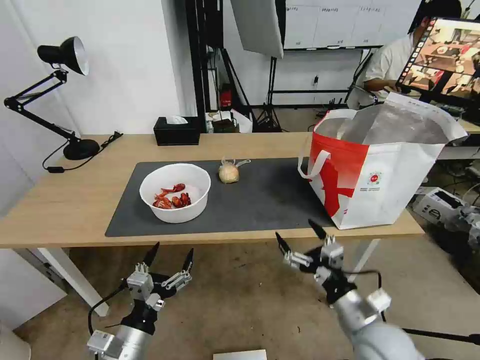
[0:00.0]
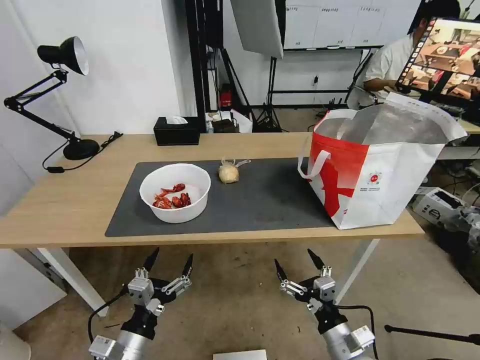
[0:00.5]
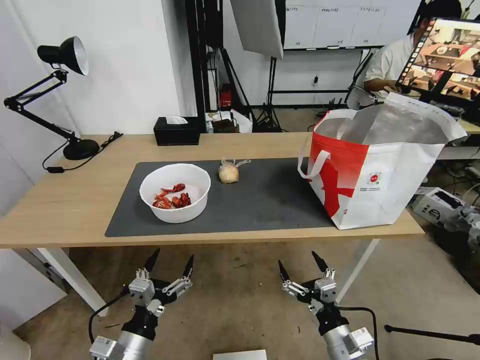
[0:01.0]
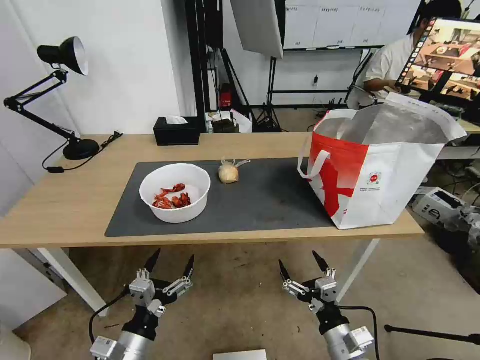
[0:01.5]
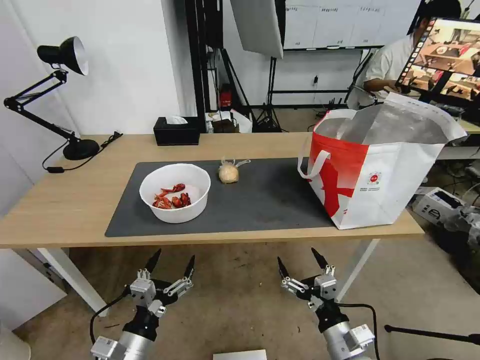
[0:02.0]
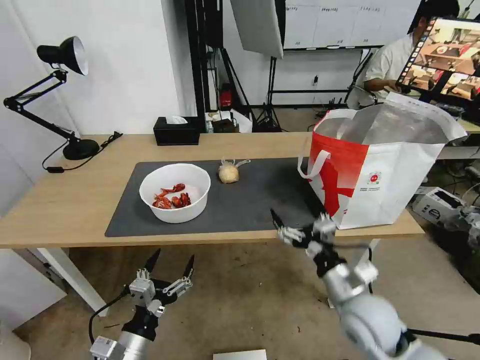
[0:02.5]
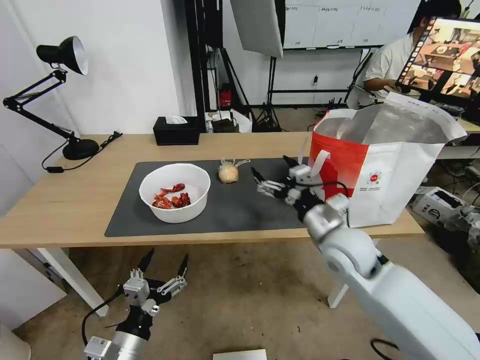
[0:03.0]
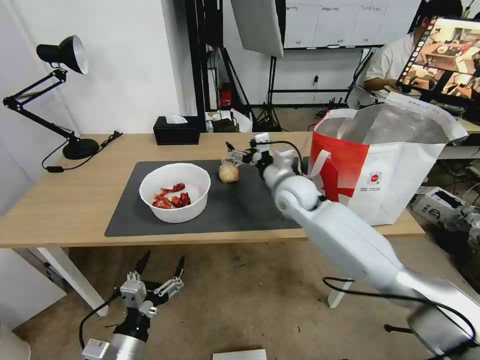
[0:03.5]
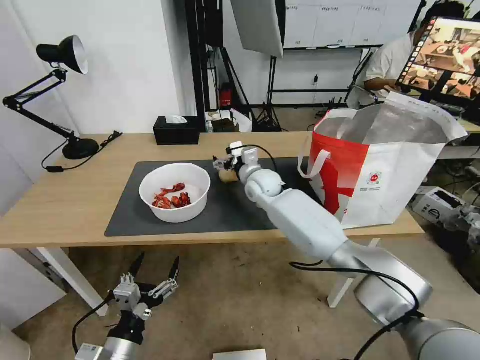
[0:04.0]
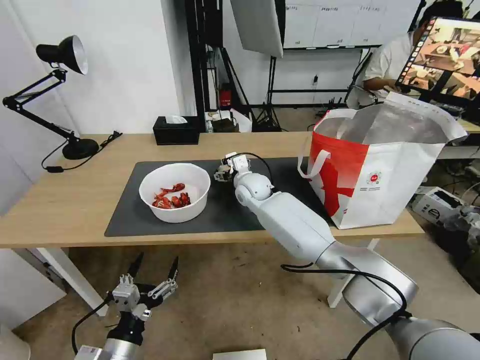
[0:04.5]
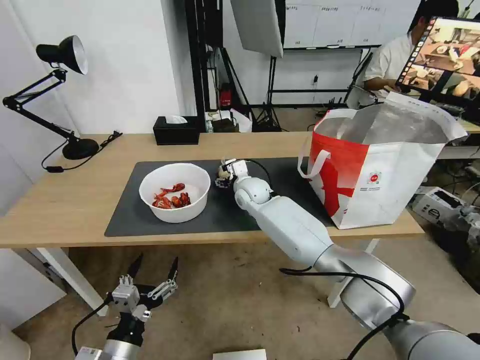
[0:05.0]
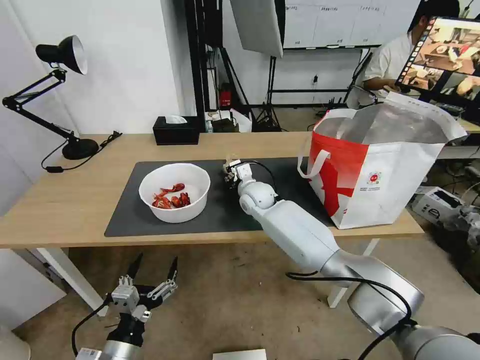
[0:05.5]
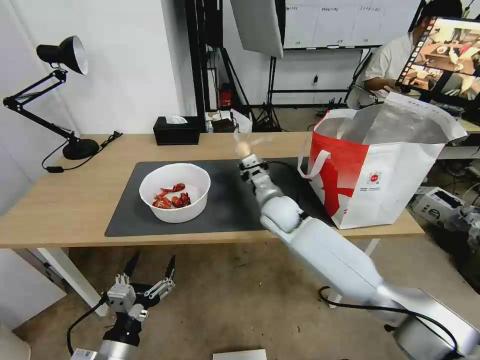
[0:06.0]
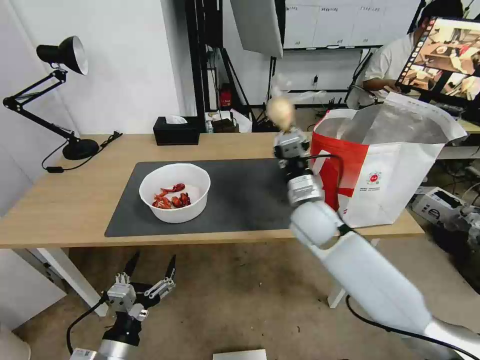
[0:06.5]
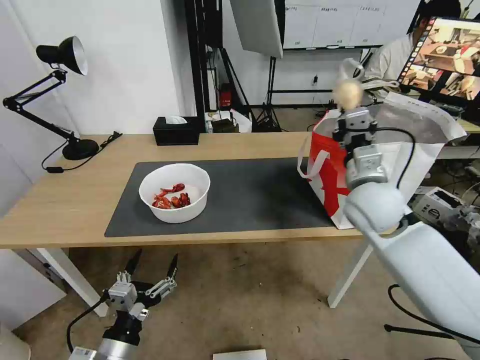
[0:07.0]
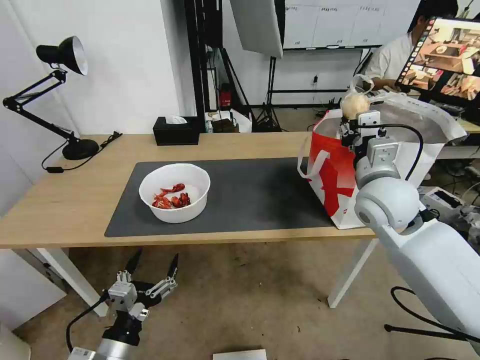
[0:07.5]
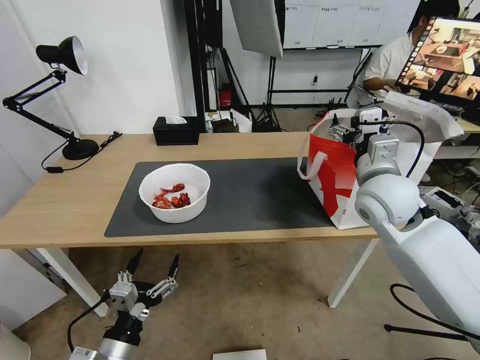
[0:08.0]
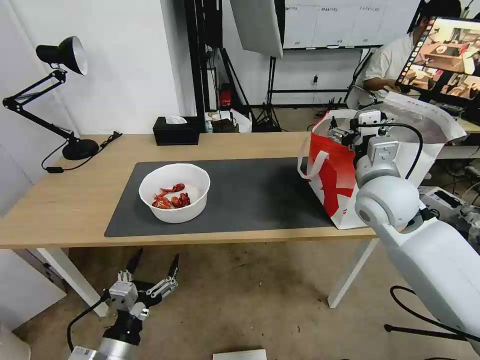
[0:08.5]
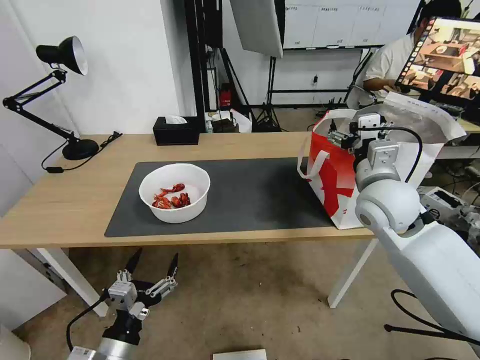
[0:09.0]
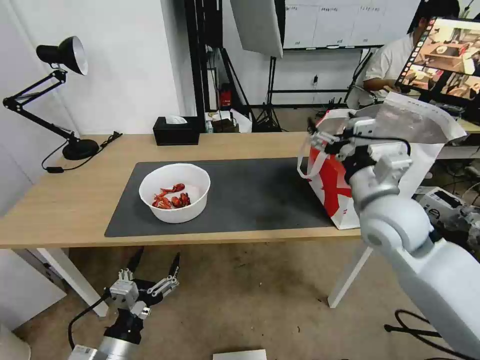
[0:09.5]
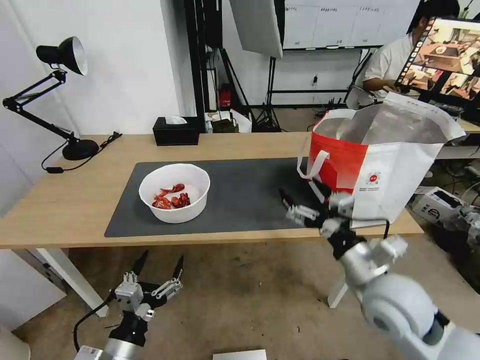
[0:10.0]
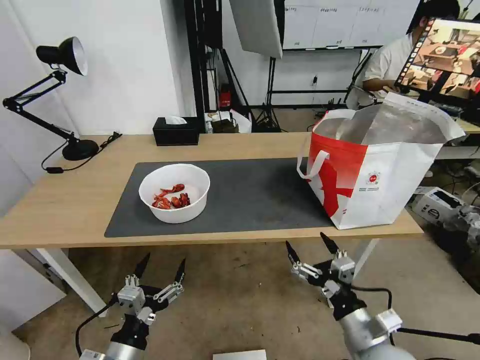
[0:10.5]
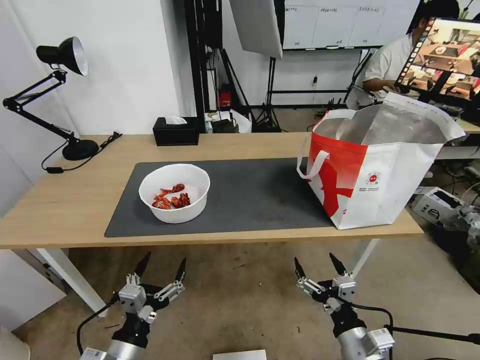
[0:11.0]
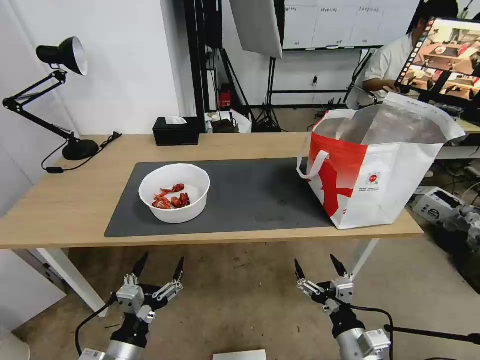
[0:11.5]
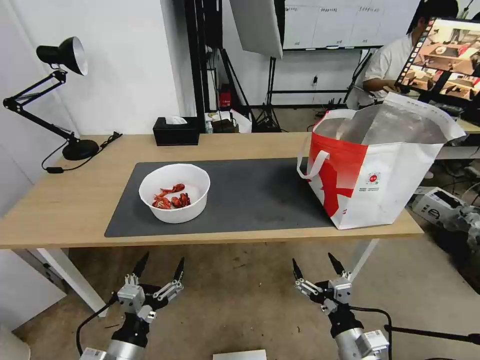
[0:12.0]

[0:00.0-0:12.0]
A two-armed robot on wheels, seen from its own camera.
Task of the whole recording: Pick up the trash from the table and place it into the takeout bag.
0:00.0 to 0:02.0: The right gripper is displaced downward by approximately 5 cm.
0:02.0 to 0:04.0: The right gripper travels forward by roughly 40 cm.
0:04.0 to 0:06.0: The right gripper goes roughly 10 cm backward, and closes.
0:06.0 to 0:08.0: The right gripper goes some 25 cm to the right, upward and backward, and opens its fingers.
0:08.0 to 0:10.0: The right gripper travels backward and downward by roughly 15 cm.
0:10.0 to 0:12.0: The right gripper is displaced downward and backward by some 20 cm.

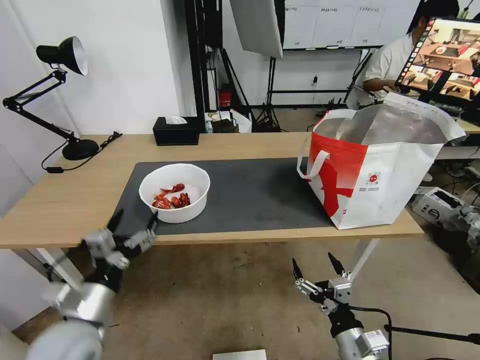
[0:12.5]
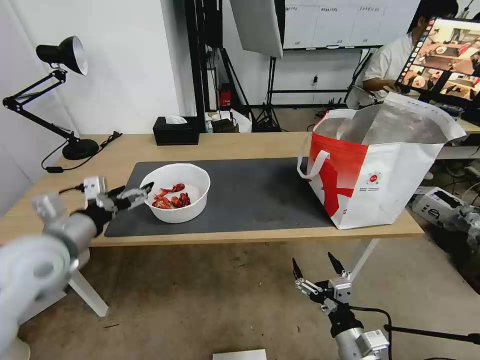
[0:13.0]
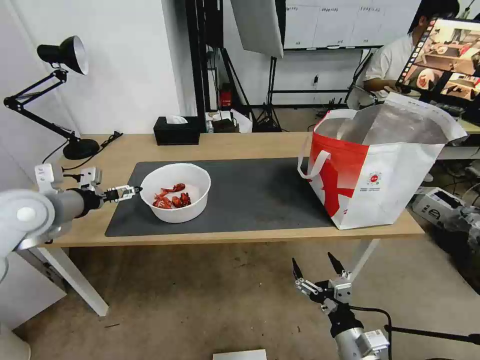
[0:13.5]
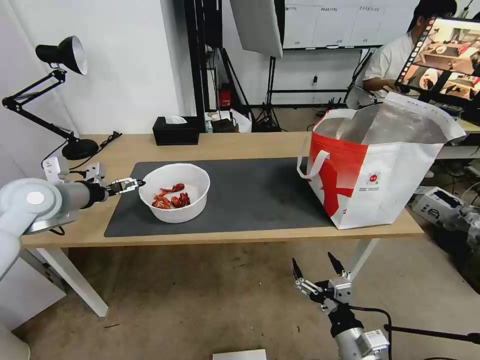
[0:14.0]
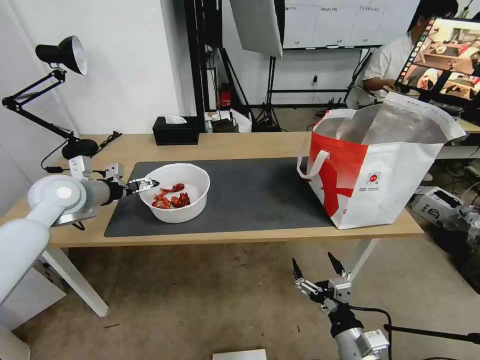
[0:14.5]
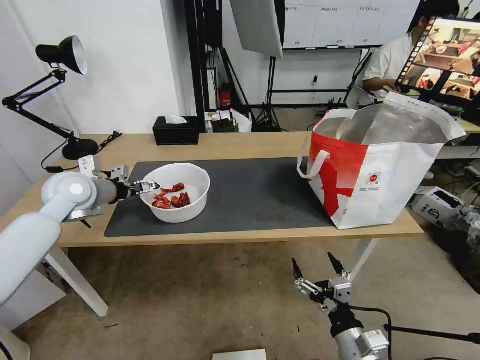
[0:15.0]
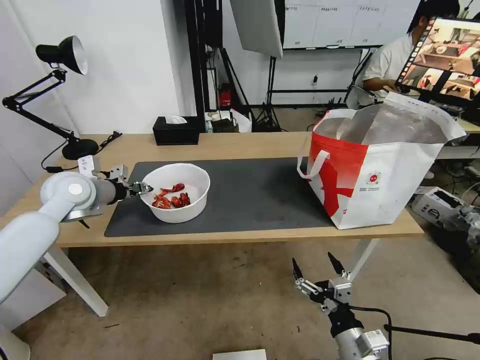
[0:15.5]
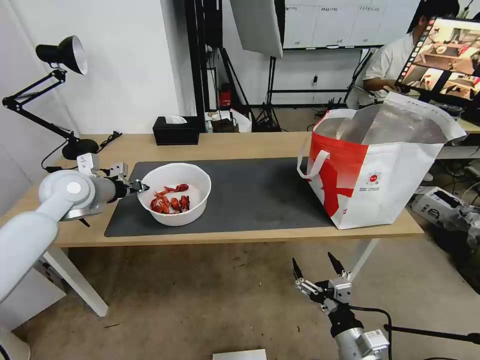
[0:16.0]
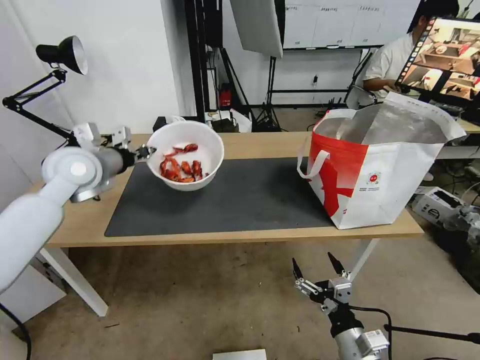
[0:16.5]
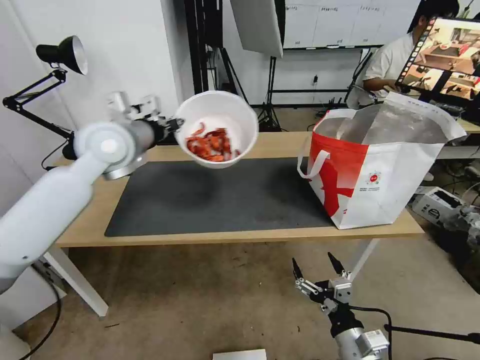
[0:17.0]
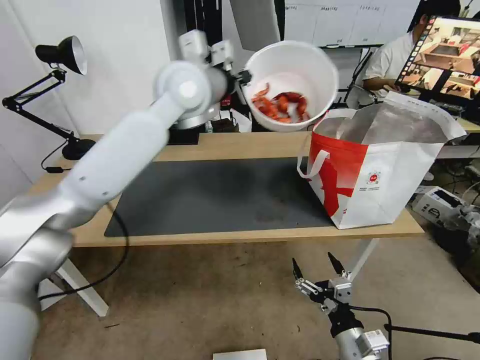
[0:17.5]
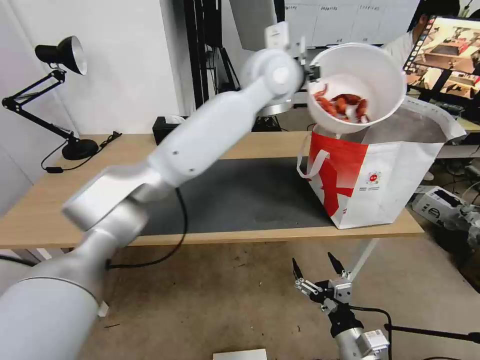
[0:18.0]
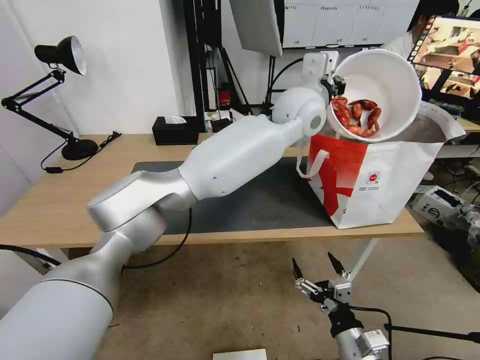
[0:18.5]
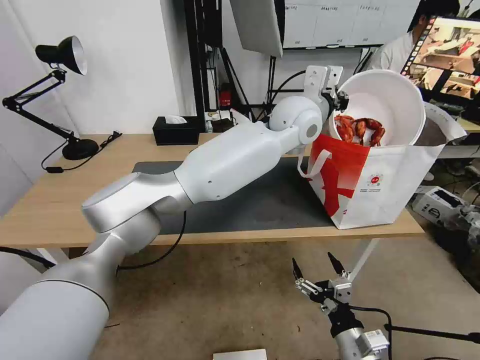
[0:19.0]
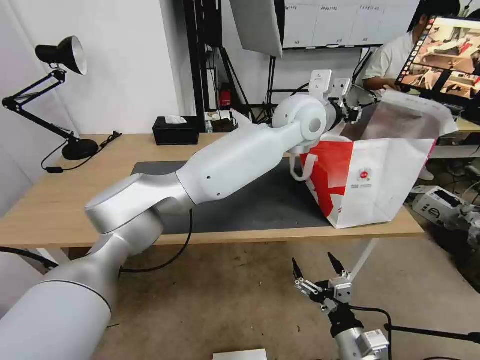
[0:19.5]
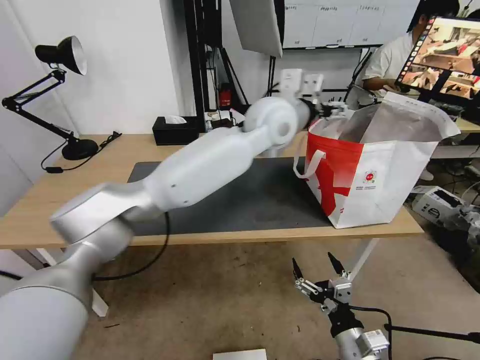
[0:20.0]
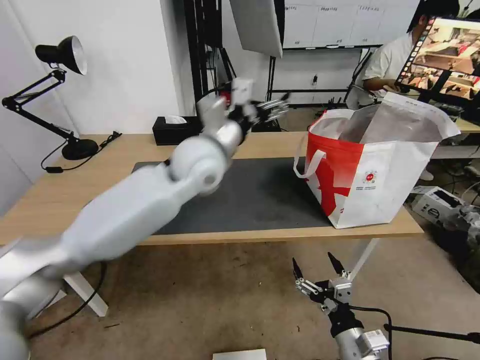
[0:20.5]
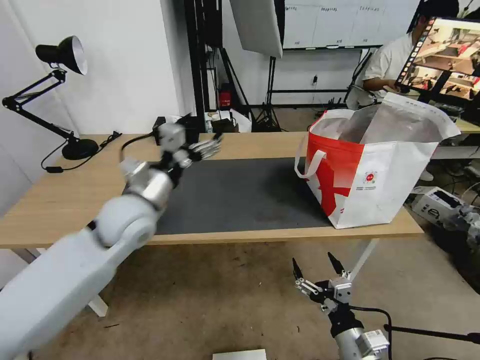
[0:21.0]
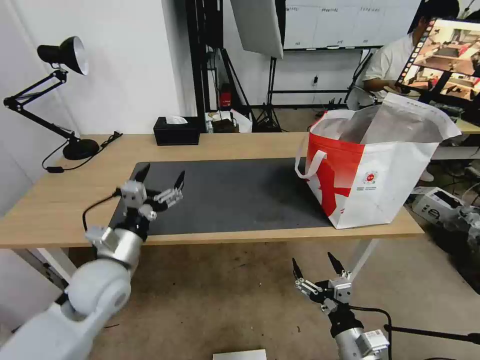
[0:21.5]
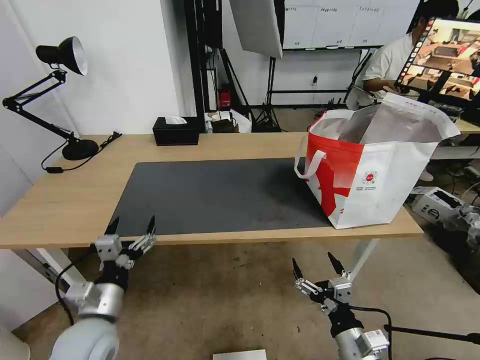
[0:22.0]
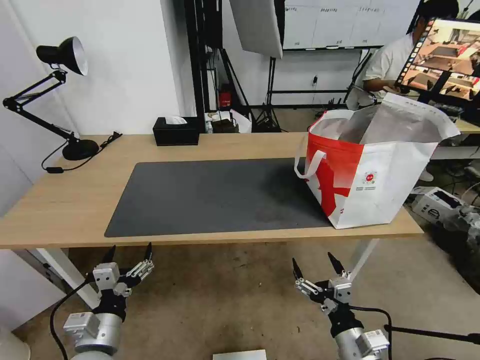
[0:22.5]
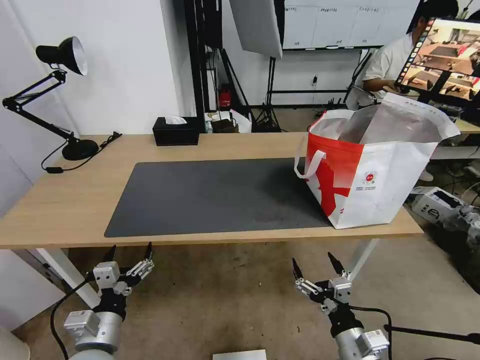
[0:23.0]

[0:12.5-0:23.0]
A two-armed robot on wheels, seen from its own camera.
Task of the whole recording: Pick up the trash from the table and place it into the takeout bag.
0:12.5 to 0:14.5: The left gripper is displaced forward and upward by roughly 30 cm.
0:14.5 to 0:16.5: The left gripper is displaced to the right and upward by some 10 cm, and closes its fingers.
0:16.5 to 0:19.0: The left gripper is displaced to the right by about 40 cm.
0:19.0 to 0:21.0: The left gripper is displaced to the left, backward and downward by roughly 40 cm, and opens.
0:21.0 to 0:23.0: The left gripper is displaced backward and downward by roughly 25 cm.

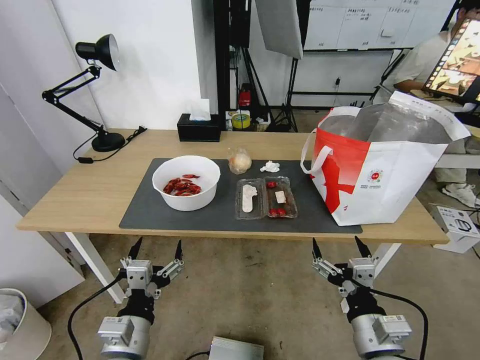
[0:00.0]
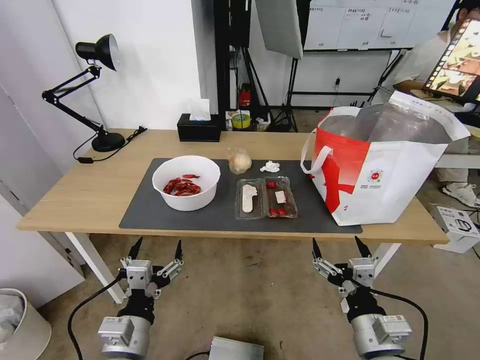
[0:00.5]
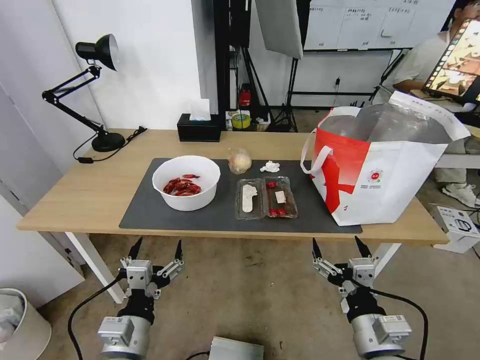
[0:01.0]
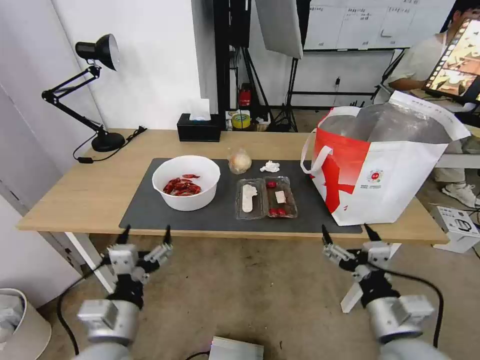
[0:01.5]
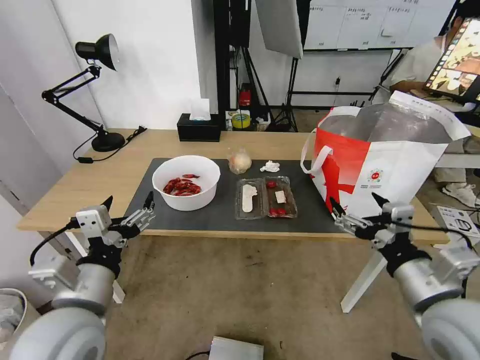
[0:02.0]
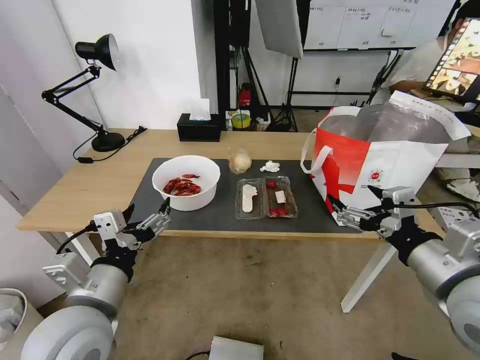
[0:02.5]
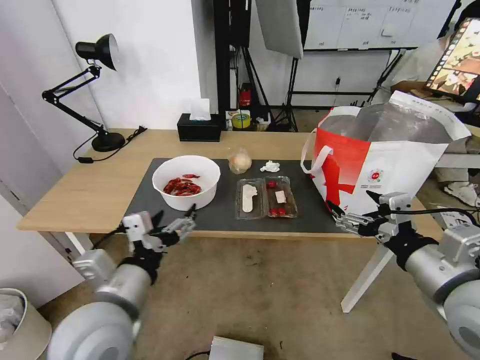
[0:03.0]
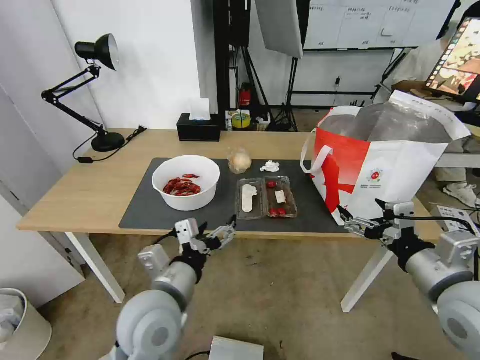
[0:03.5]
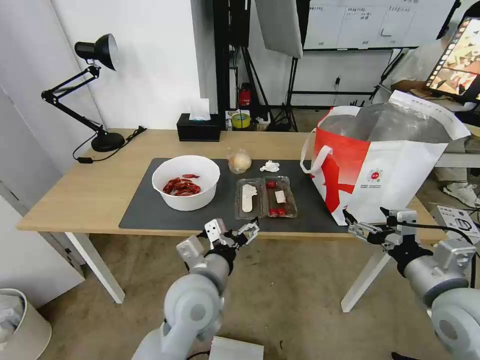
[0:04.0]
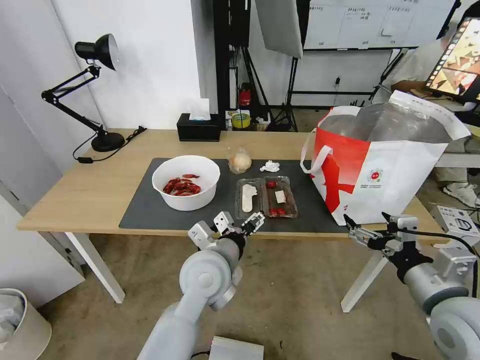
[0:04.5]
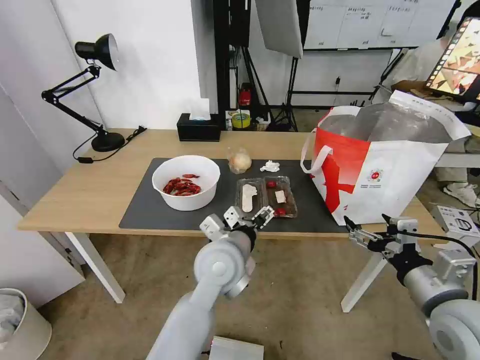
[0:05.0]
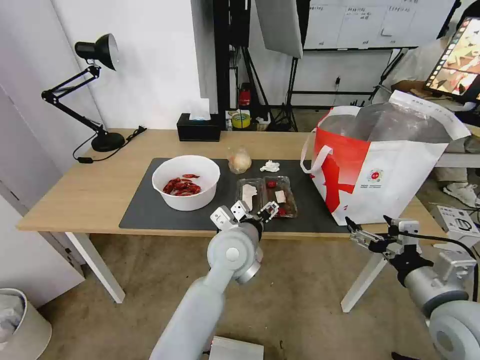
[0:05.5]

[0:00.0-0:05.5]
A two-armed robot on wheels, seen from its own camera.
Task of the whole recording: Pick up the trash from the table and place it into the takeout bag.
0:02.0 to 0:03.5: The left gripper moves to the right, some 10 cm.
0:03.5 to 0:05.5: The left gripper heads to the right and forward, covering some 15 cm.
